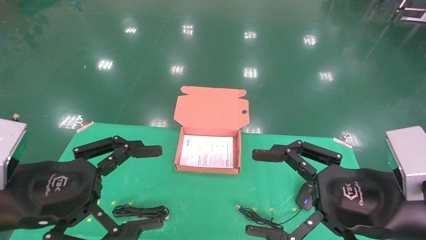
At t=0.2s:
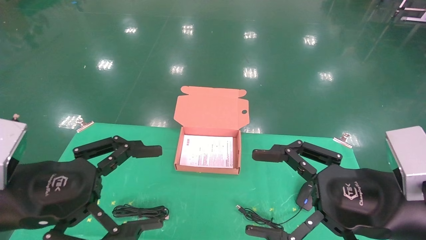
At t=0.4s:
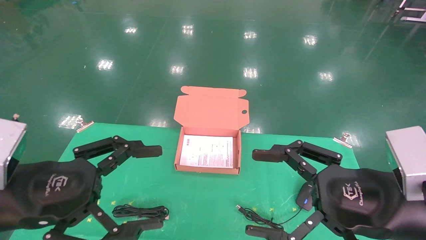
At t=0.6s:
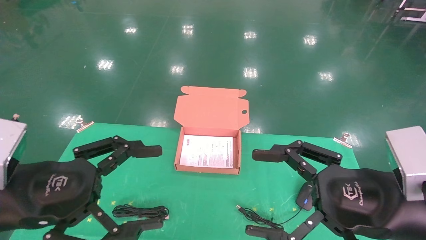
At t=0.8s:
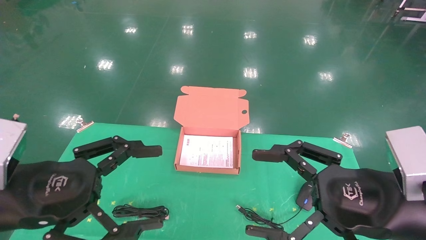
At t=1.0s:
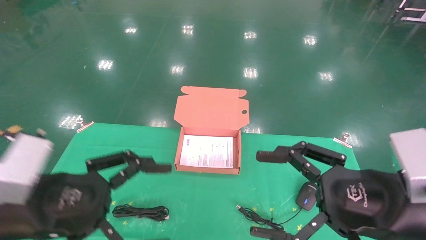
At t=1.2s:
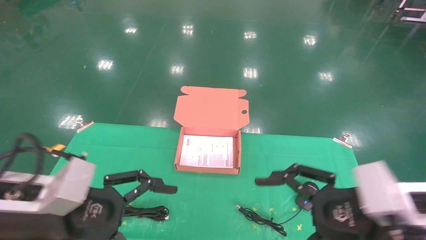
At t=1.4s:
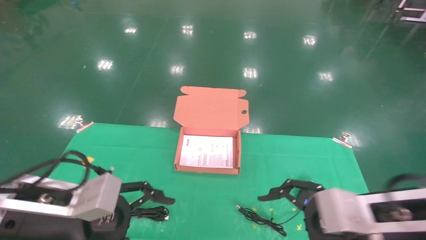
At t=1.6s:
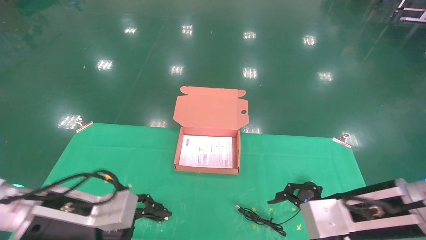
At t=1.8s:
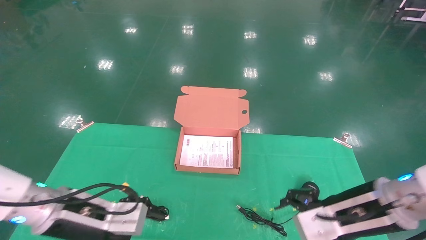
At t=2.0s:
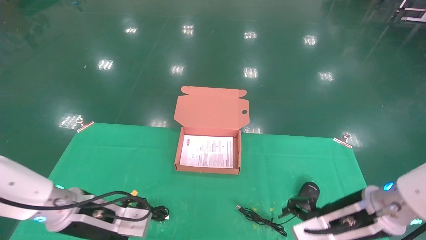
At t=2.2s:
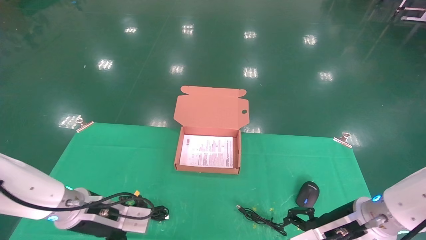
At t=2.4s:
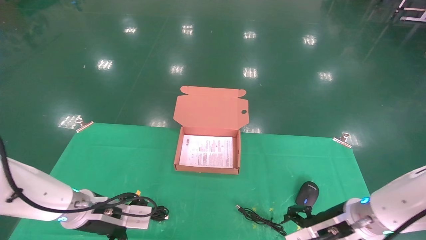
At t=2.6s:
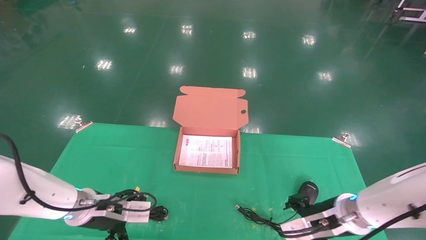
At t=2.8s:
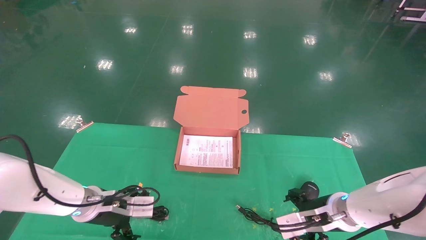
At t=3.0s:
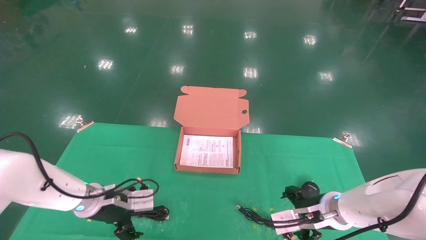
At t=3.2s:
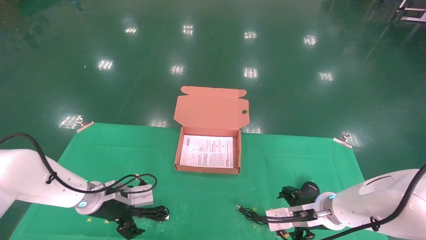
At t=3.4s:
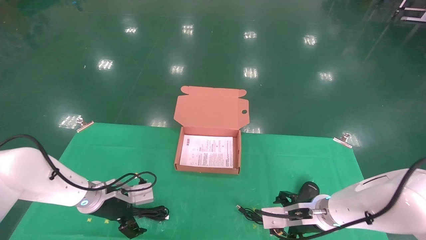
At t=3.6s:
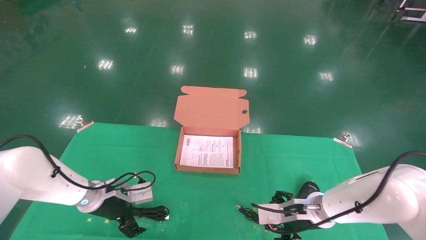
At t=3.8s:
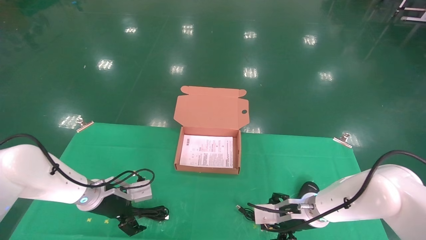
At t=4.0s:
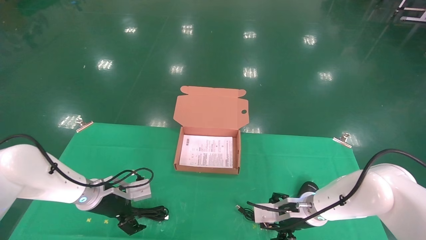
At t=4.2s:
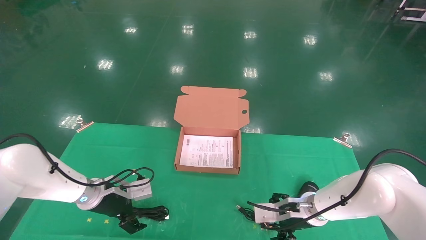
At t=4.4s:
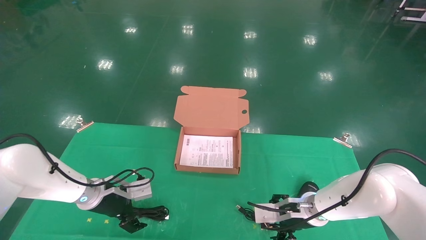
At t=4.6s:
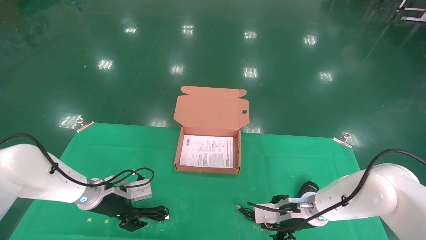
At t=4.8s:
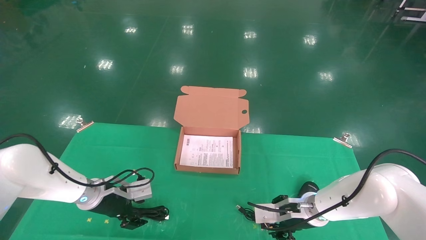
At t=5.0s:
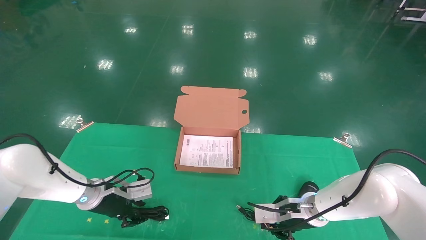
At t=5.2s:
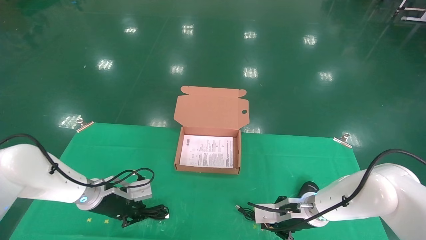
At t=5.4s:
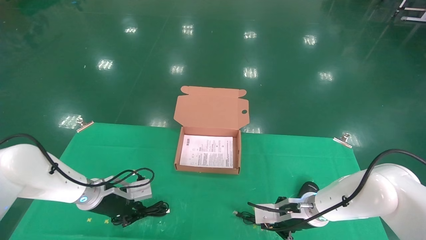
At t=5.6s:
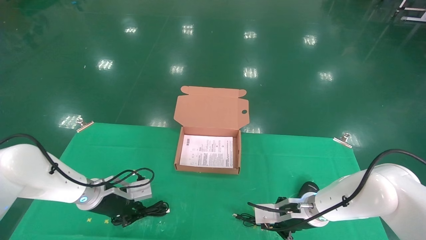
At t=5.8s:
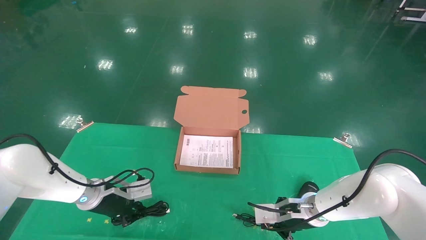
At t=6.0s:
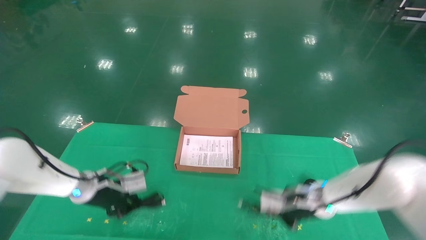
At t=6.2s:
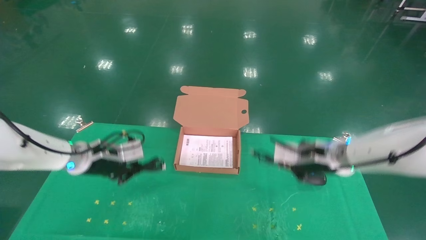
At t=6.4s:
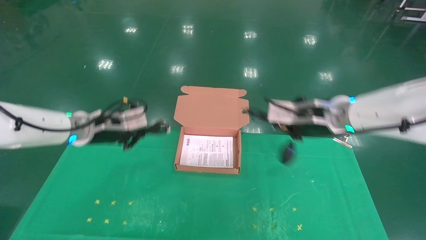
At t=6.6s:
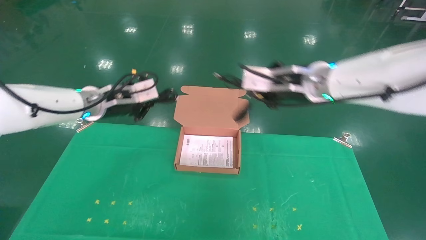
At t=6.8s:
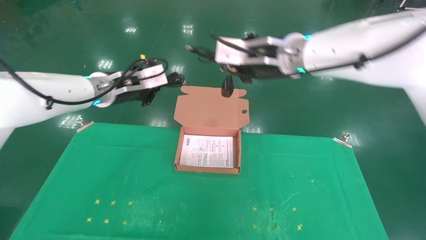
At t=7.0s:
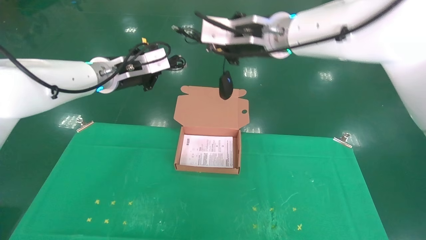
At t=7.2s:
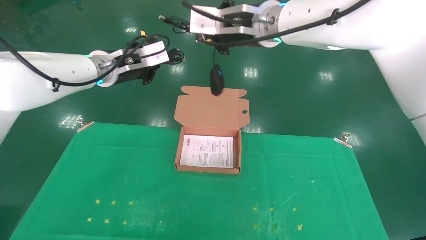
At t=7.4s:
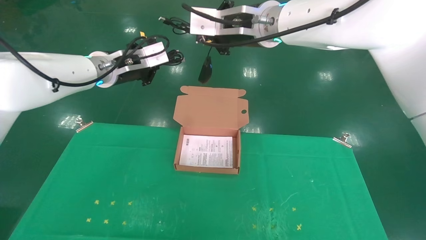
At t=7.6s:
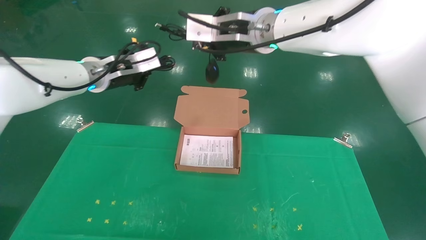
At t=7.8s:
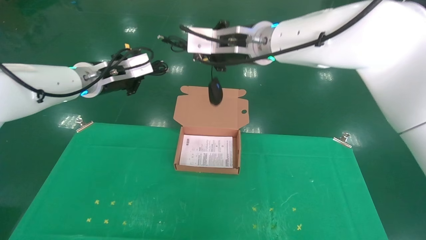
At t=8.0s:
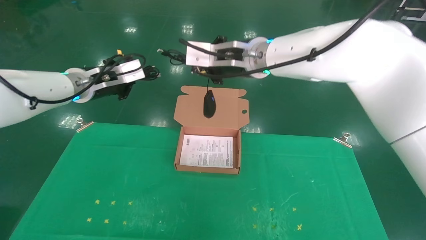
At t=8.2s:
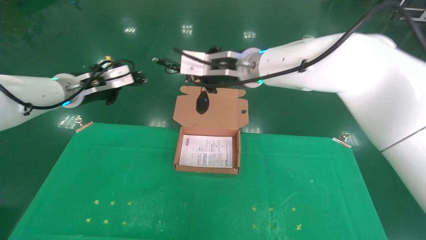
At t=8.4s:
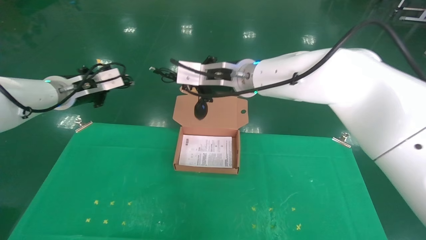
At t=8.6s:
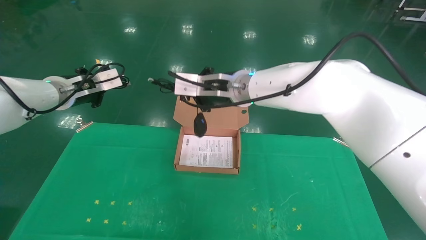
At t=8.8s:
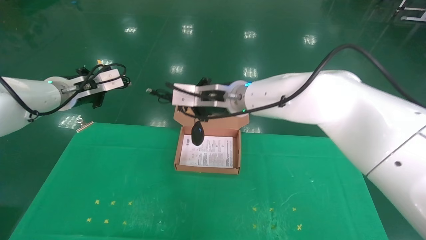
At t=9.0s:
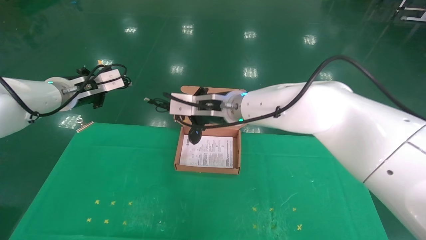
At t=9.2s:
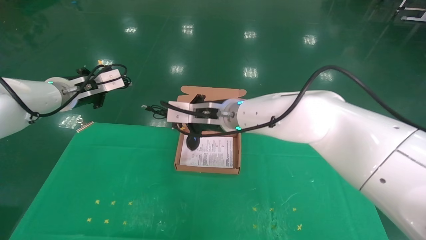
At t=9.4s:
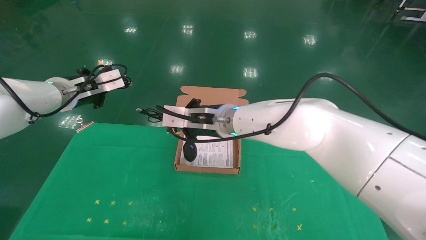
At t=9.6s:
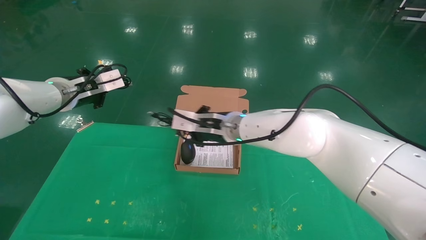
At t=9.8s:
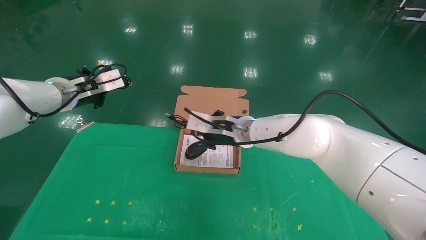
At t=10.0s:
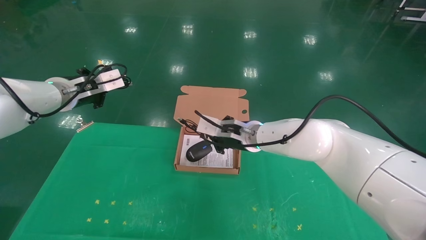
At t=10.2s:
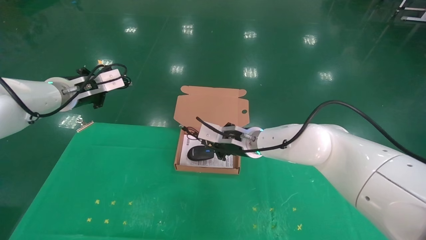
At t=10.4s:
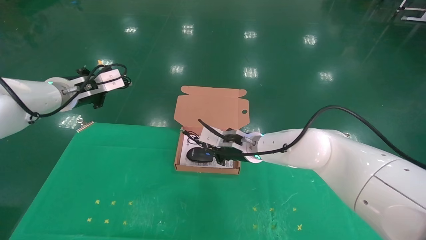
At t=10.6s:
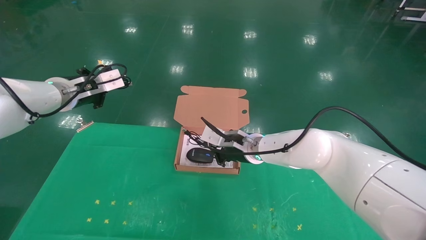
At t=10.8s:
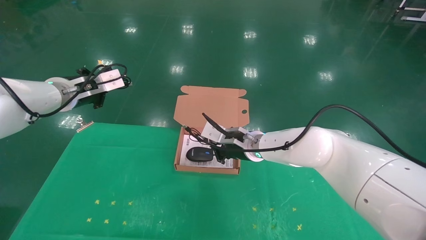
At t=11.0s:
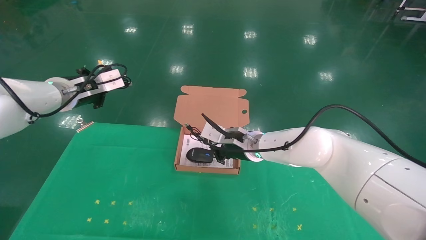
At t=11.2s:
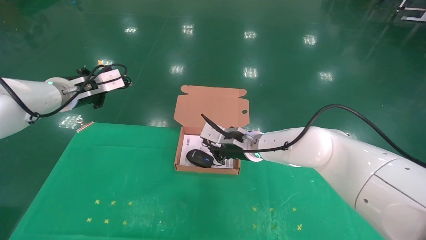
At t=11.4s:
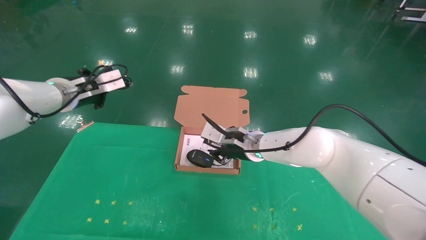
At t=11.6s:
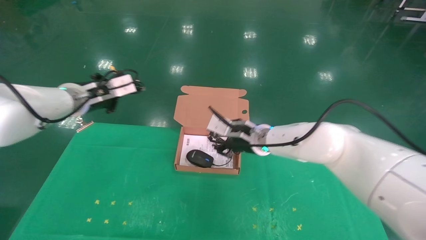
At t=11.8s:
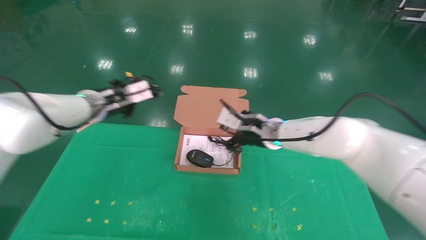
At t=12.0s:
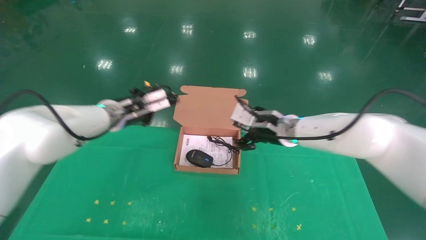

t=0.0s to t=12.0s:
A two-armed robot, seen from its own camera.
Task of the whole recording: grasp data cable left put into box grasp mouse right put into box.
Step, t=1.6s to t=6.6s: Grab and pick up both the mouse and power cord from the accessory packaging area at the same time.
t=0.0s to t=1.6s: The left gripper heads forward and downward, covering some 10 cm. The right gripper is displaced forward by roughly 5 cm.
t=1.6s to t=3.0s: The grippers both shift forward and downward by roughly 15 cm.
t=3.0s to t=4.4s: The right gripper shifts by some 5 cm.
t=4.4s to t=6.0s: Both grippers move upward, about 5 cm. The right gripper closes, while the left gripper closes up.
t=6.0s to t=7.6s: The left gripper shifts approximately 20 cm upward, while the right gripper goes roughly 35 cm upward and to the left.
t=7.6s to t=9.0s: The left gripper heads to the left, covering approximately 5 cm; the right gripper is displaced downward by some 15 cm.
t=9.0s to t=10.4s: The right gripper travels downward and to the right by roughly 10 cm.
t=10.4s to t=12.0s: The left gripper heads to the right and downward, covering approximately 10 cm, while the right gripper moves to the right, roughly 10 cm, and opens up.

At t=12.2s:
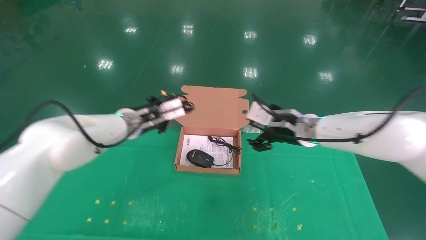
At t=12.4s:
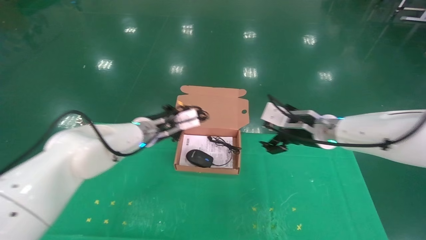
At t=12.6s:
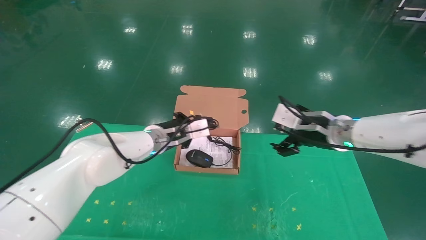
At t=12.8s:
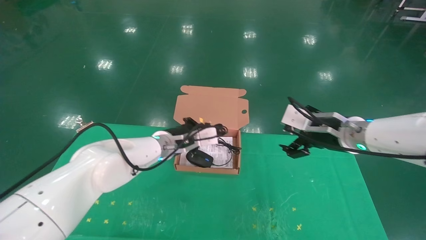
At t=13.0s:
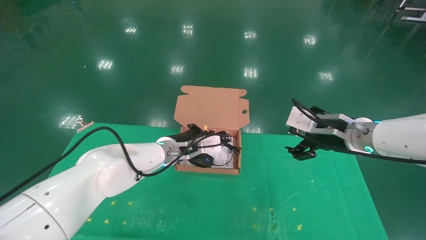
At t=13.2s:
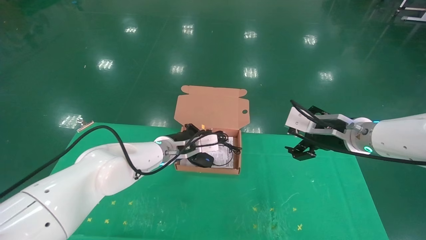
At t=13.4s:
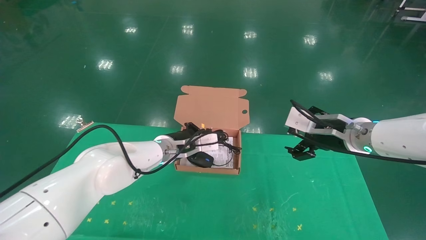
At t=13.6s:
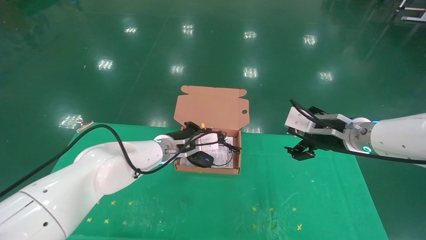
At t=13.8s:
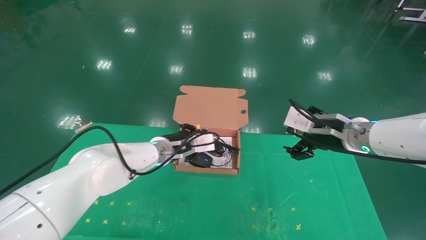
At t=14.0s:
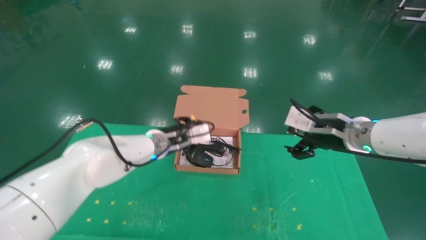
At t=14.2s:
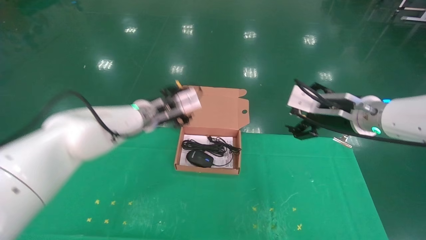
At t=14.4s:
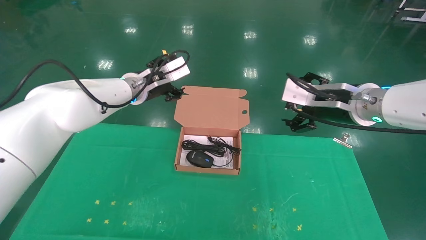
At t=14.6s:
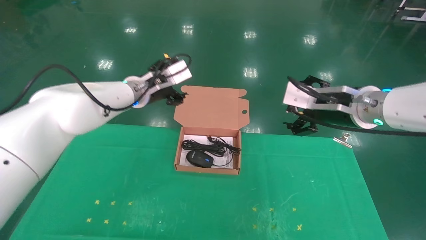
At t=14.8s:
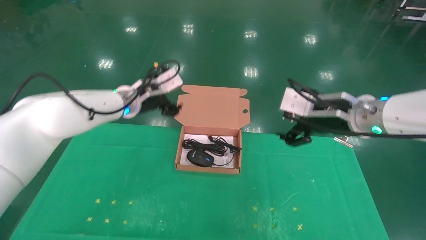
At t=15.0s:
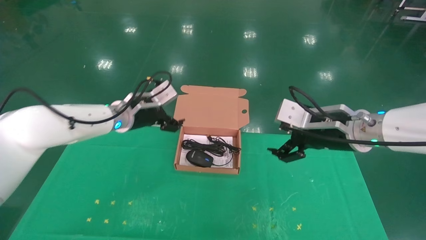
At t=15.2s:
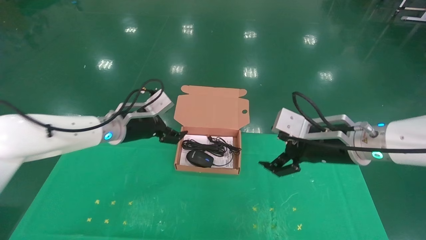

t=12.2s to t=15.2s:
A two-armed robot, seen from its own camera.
Task of the whole recording: grasp data cable left put into box grasp mouse right put into box.
t=12.2s to t=13.8s: The left gripper shifts approximately 5 cm to the right, while the right gripper goes roughly 10 cm to the right and backward.
t=13.8s to t=15.2s: The left gripper is displaced to the left and upward by roughly 10 cm, and opens its fingers.
